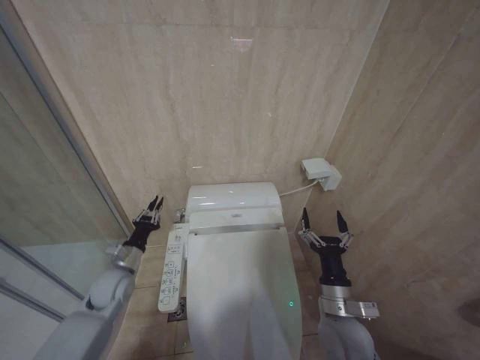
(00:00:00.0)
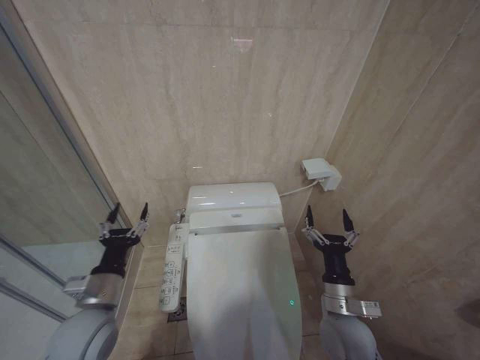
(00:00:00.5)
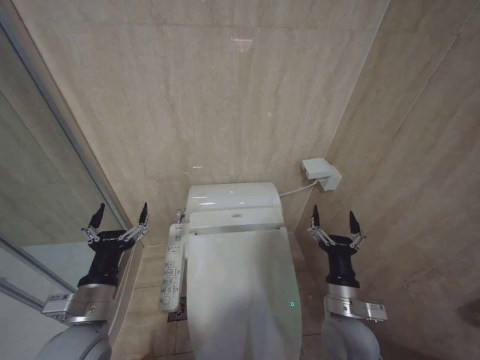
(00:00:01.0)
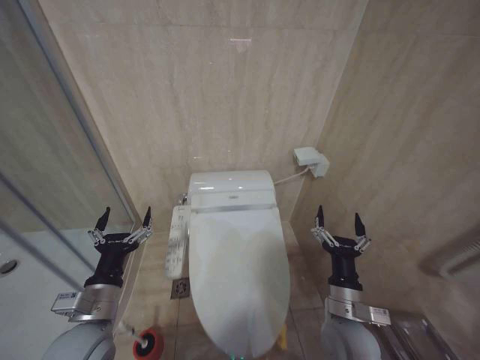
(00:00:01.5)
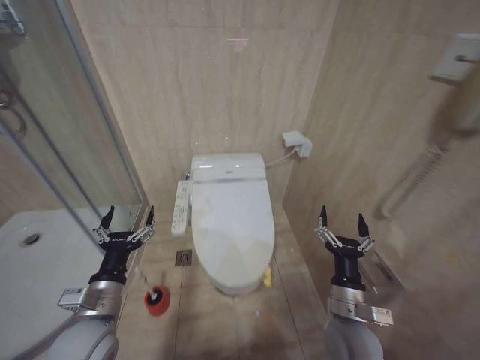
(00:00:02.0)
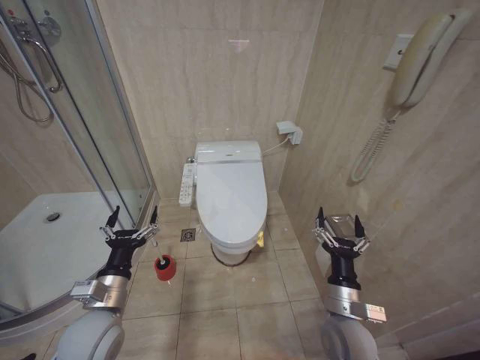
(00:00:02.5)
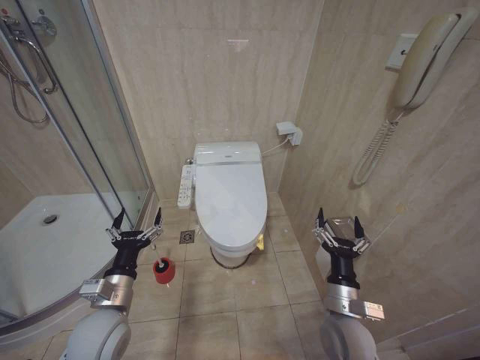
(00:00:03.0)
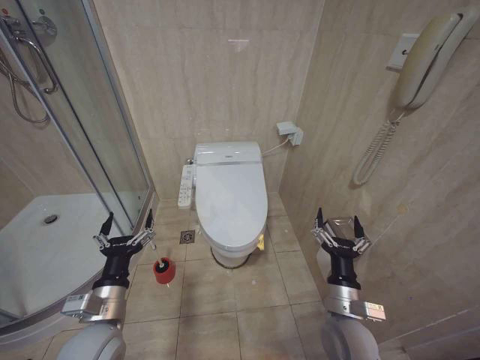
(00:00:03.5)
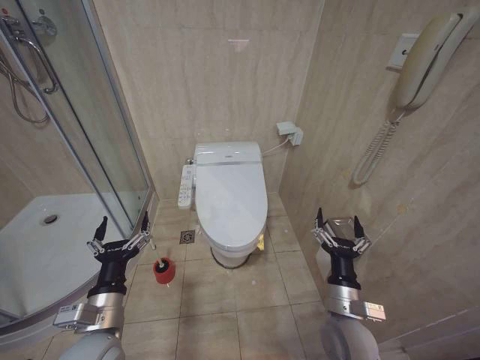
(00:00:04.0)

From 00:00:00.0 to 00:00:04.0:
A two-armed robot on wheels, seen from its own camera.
Task of the whole recording: Open the toilet lid, clean the toilet bowl with a toilet brush, close the toilet lid, and flush.
From 00:00:00.0 to 00:00:02.0: The left gripper travels backward and upward by some 20 cm, and opens up.
